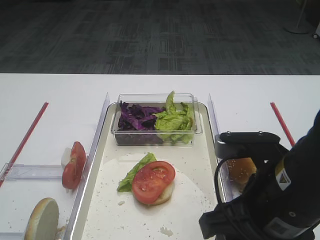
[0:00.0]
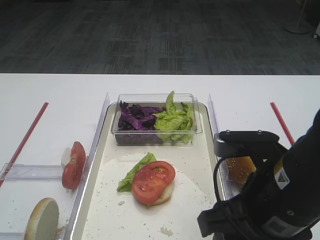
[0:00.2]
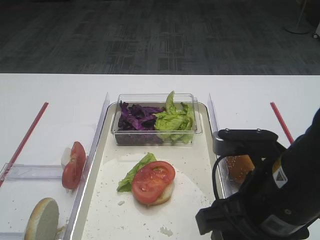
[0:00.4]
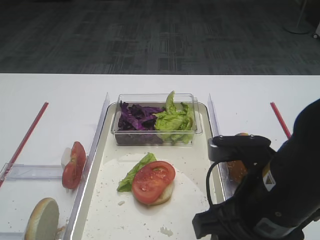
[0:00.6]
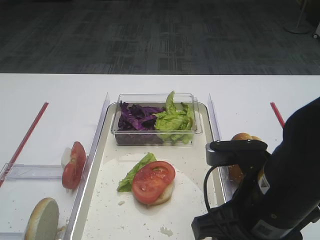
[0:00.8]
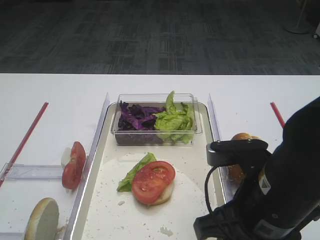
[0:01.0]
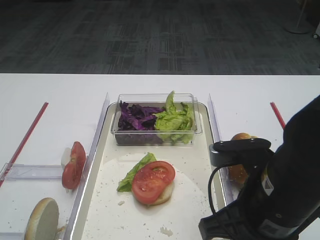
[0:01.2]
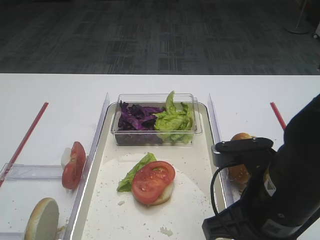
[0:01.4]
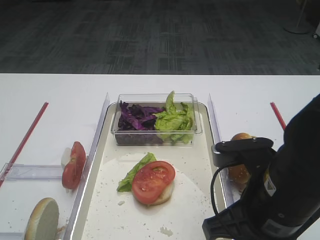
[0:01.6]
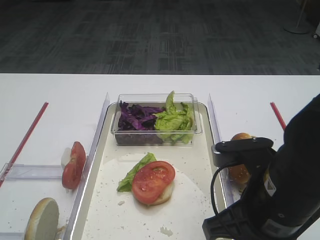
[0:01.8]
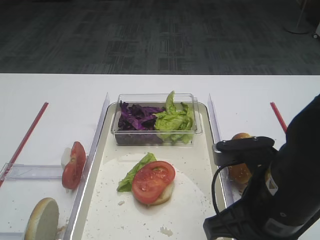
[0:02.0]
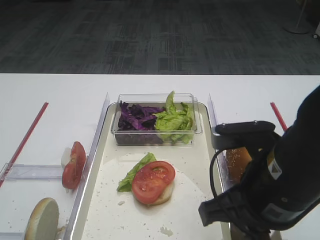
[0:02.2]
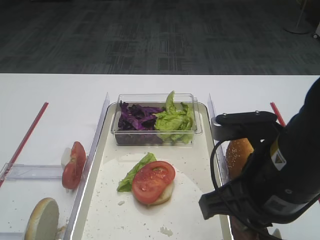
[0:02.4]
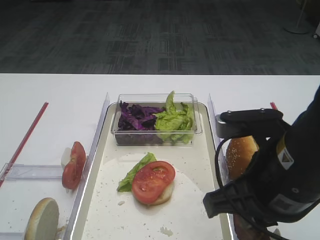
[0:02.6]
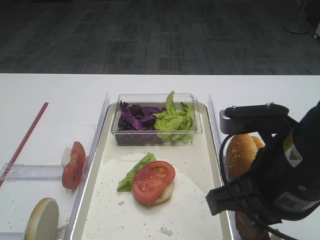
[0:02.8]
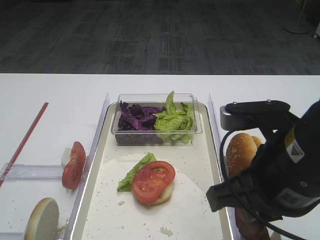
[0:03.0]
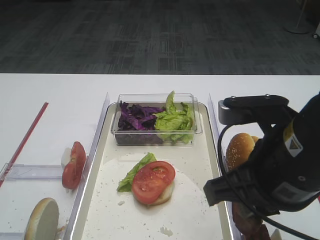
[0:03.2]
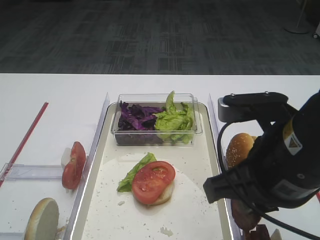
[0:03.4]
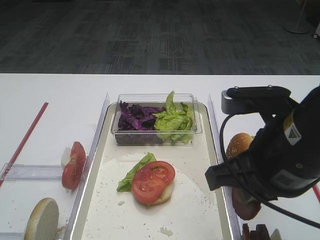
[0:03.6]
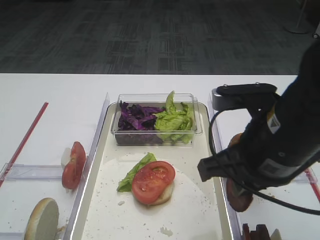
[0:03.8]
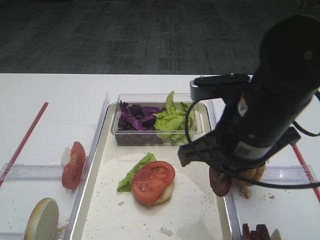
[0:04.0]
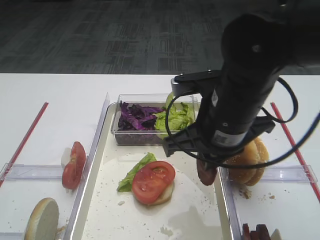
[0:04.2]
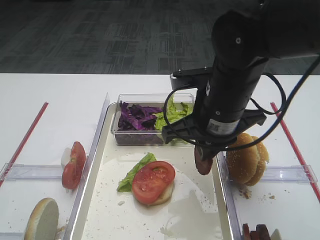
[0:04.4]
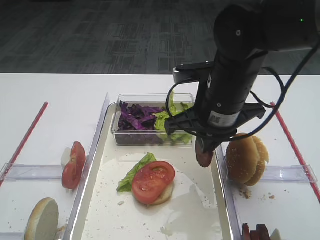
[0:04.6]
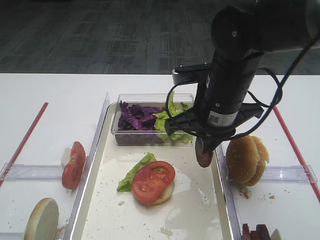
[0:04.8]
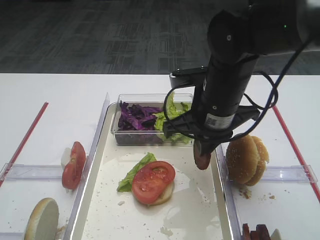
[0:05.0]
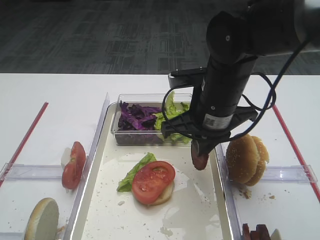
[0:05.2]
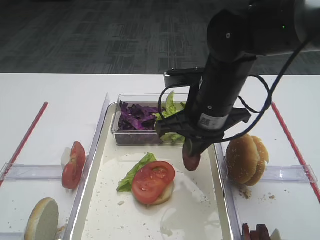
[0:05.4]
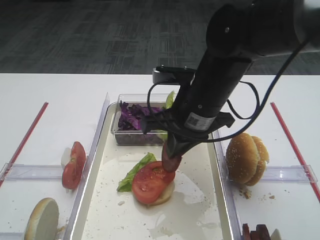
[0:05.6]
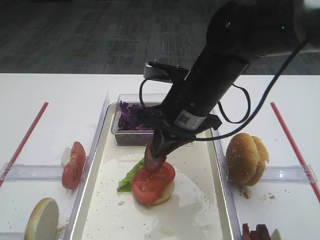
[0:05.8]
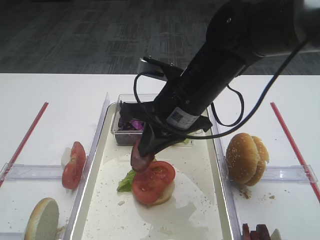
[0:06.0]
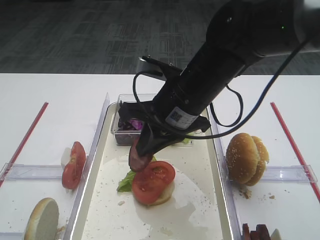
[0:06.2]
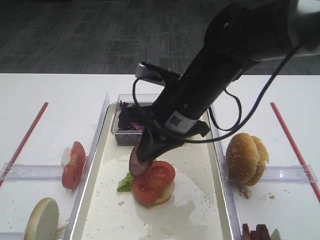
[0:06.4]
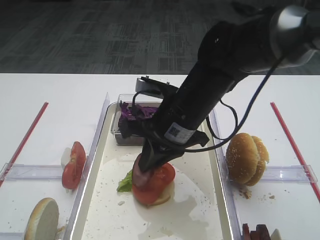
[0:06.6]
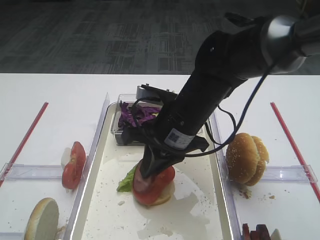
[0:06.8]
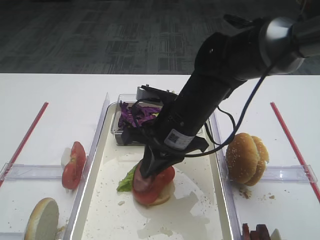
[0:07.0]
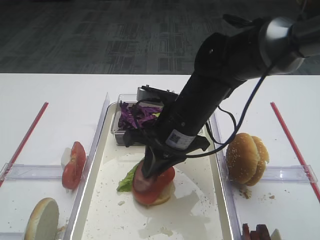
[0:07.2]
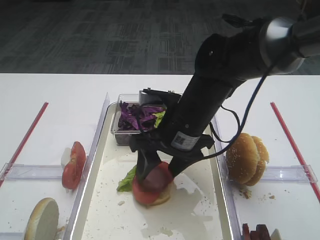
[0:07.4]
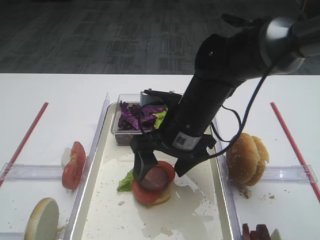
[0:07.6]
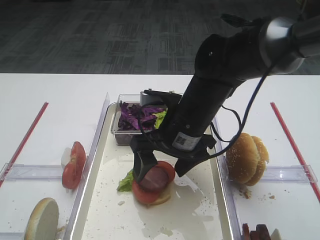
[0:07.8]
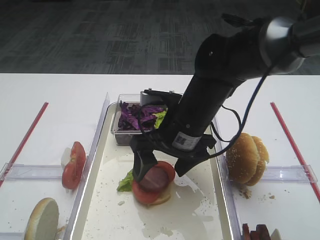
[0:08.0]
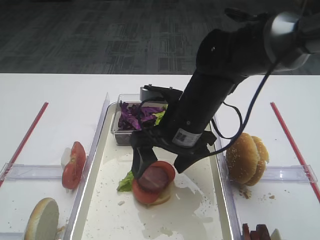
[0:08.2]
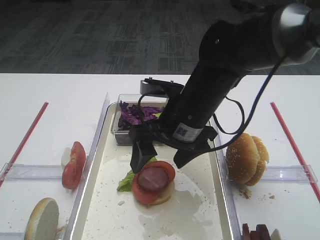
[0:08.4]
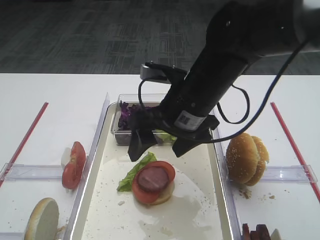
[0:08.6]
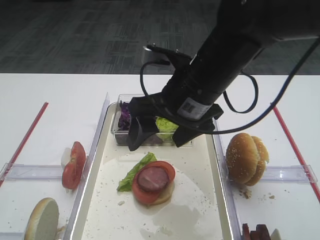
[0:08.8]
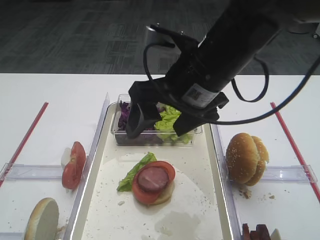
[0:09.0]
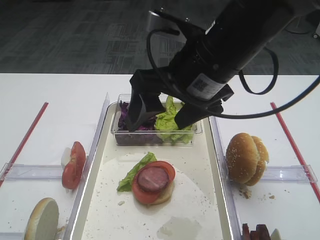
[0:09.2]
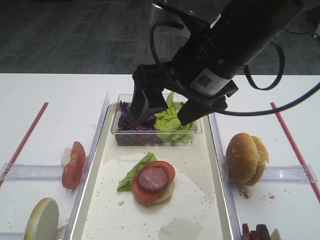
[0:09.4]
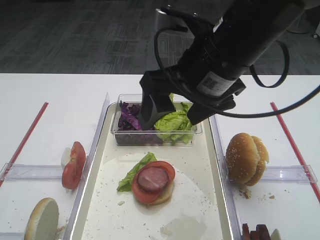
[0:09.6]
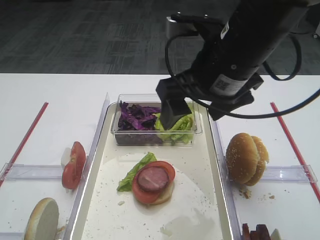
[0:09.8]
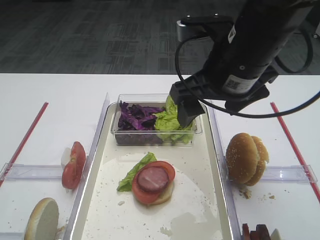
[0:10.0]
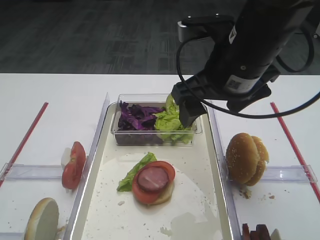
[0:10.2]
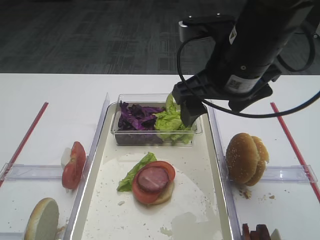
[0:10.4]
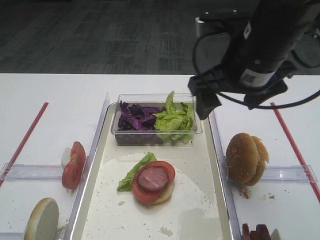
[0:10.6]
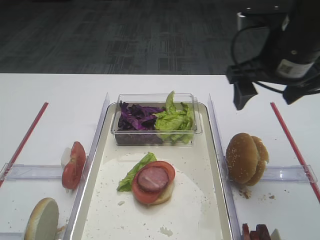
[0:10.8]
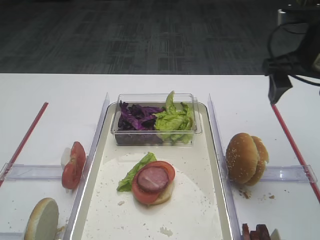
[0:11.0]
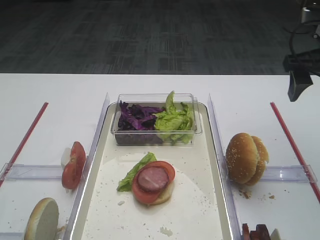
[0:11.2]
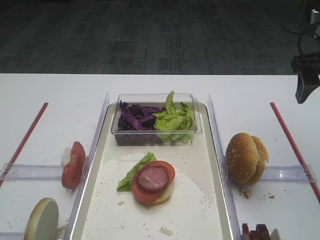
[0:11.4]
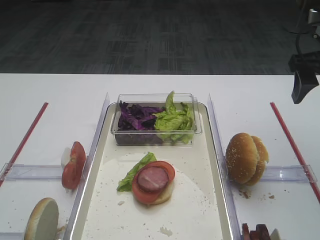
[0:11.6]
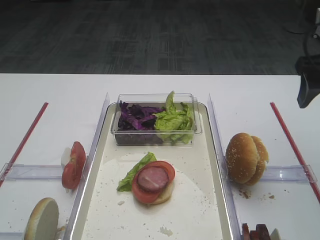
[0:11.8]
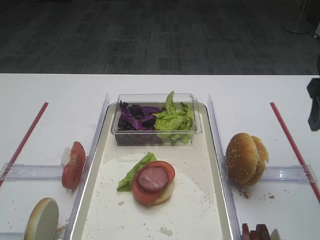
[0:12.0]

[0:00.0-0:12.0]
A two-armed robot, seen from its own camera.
Step, 0:00.0 to 0:03.4: Pick up the cutlet with the right gripper.
Step, 0:03.6 to 0:09.2: Place the cutlet on the tomato slice with the right gripper.
0:00.0 to 0:01.6: The right gripper closes its fingers.
0:01.6 to 0:03.0: The right gripper shifts approximately 5 cm upward.
0:03.0 to 0:04.4: The right gripper moves forward, roughly 10 cm.
0:06.0 to 0:07.6: The right gripper moves downward, about 5 cm, and opens up.
0:07.6 to 0:09.0: The right gripper travels upward by roughly 10 cm.
0:10.4 to 0:12.0: The right gripper travels to the right by approximately 15 cm.

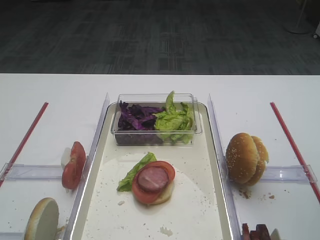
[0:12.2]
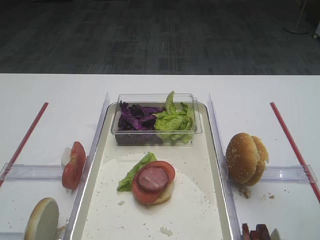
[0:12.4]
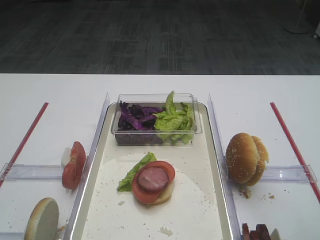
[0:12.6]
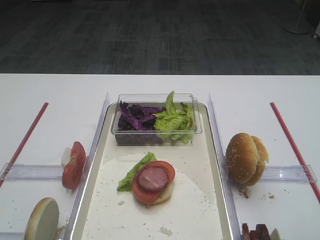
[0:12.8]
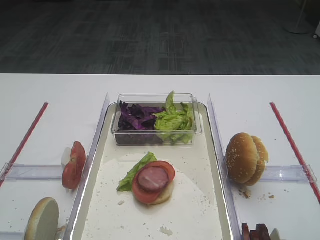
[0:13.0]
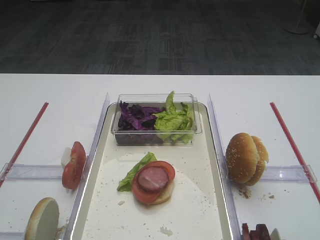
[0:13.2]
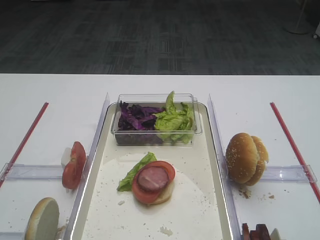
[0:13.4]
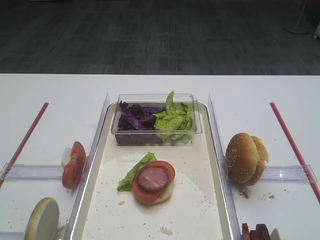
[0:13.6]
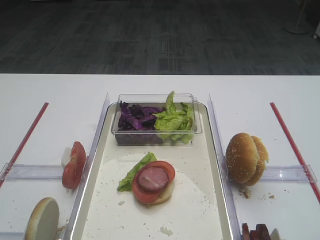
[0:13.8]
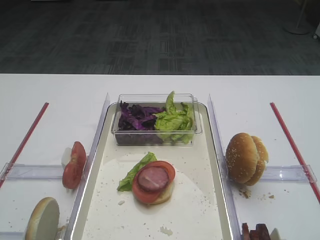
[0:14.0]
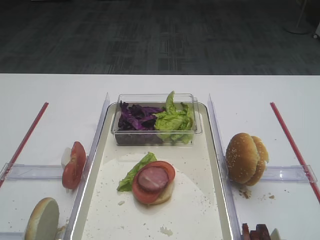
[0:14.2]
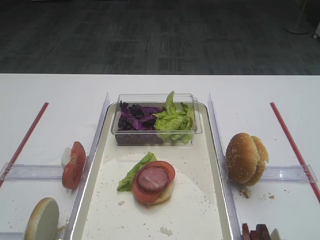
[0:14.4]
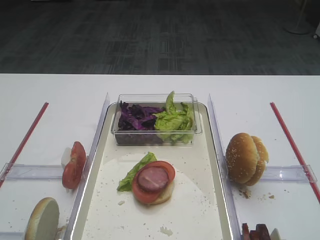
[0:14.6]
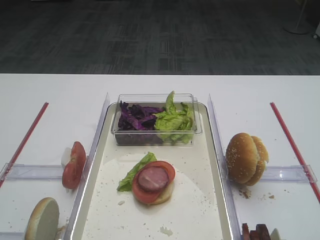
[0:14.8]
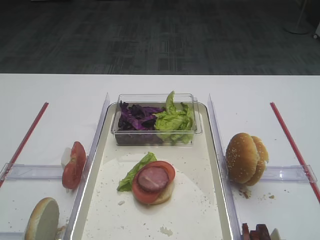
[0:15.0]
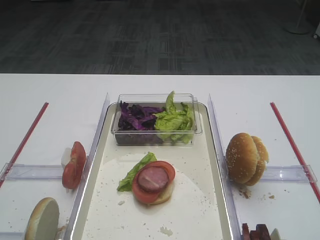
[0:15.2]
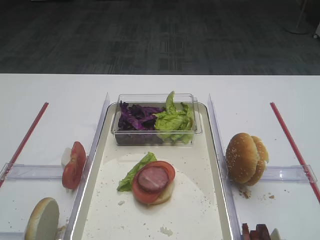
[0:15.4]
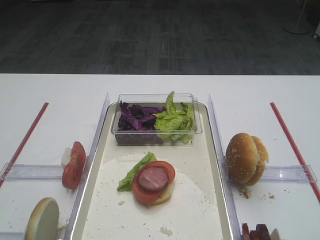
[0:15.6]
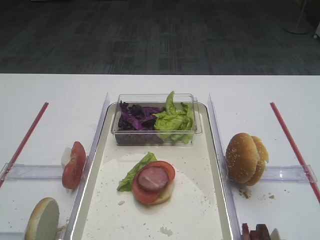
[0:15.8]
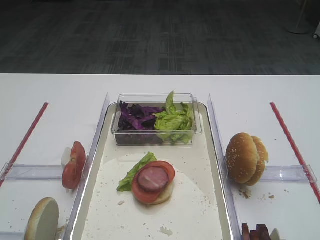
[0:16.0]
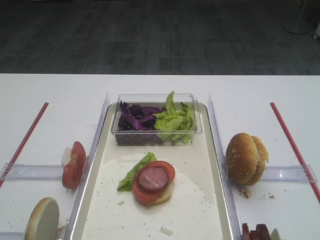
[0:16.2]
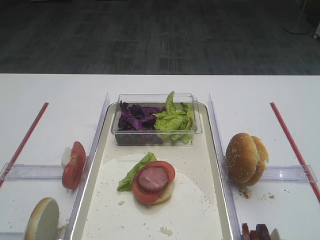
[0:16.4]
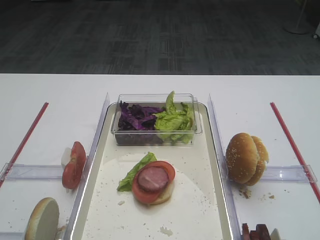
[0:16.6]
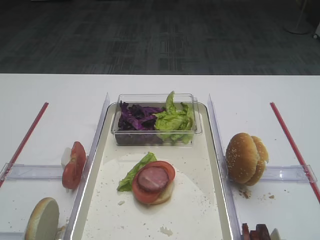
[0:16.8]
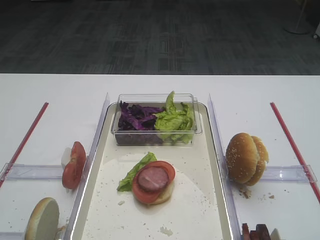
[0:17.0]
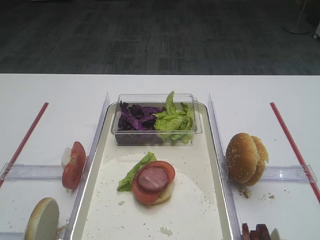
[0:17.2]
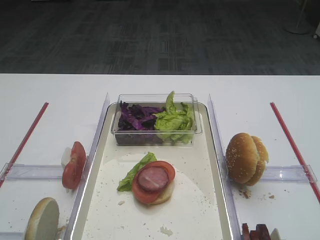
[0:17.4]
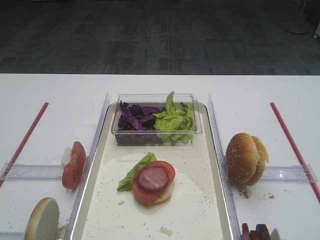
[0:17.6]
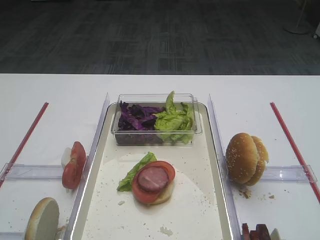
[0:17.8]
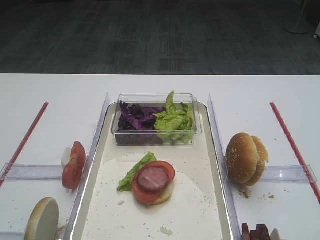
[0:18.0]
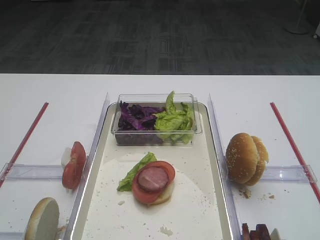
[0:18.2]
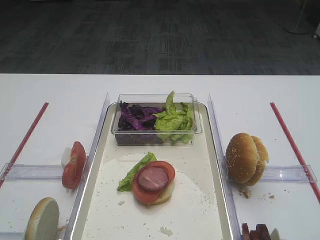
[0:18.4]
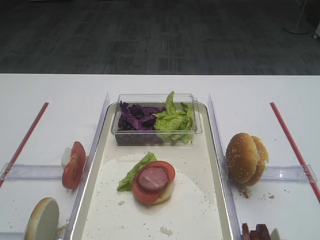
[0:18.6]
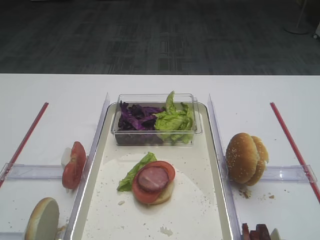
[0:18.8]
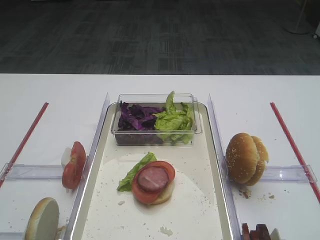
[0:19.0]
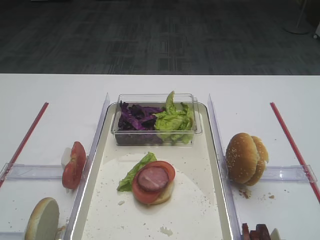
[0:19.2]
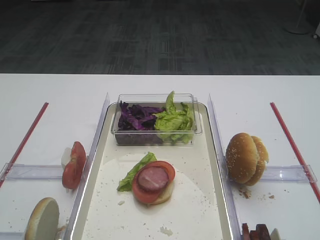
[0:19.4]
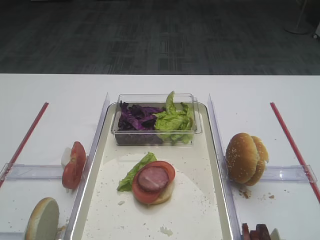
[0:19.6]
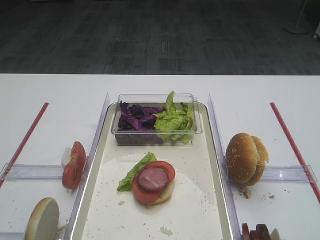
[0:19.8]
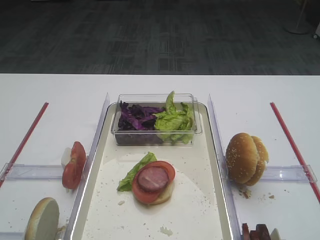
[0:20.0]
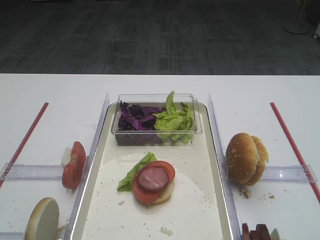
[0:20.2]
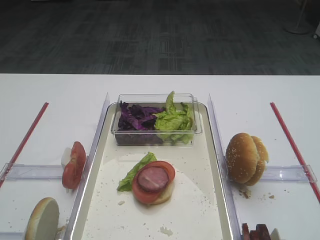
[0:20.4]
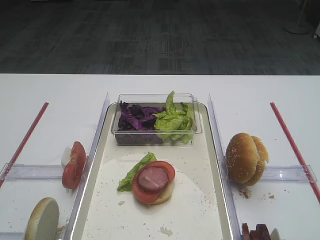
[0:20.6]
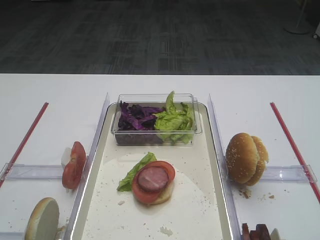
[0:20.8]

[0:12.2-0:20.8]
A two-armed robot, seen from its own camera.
0:12.2 to 0:13.6: The right gripper travels backward by some 20 cm.
0:15.0 to 0:16.6: Neither gripper changes place.
0:18.0 to 0:20.8: Both grippers stay about where they are.

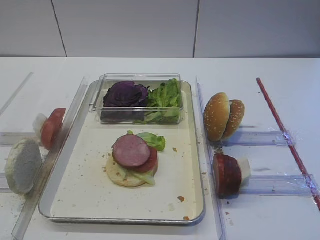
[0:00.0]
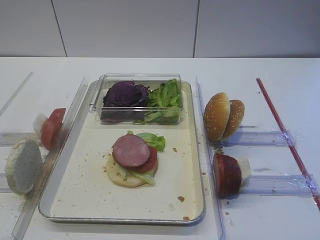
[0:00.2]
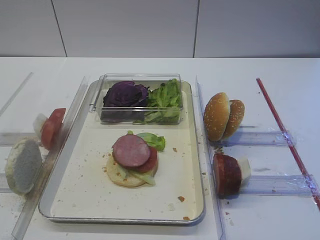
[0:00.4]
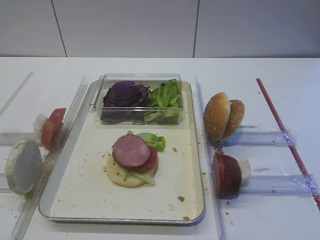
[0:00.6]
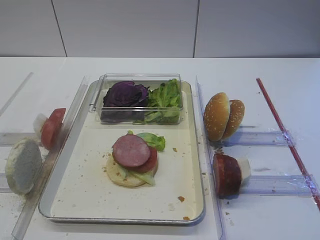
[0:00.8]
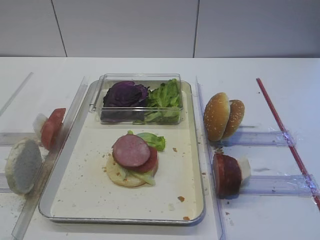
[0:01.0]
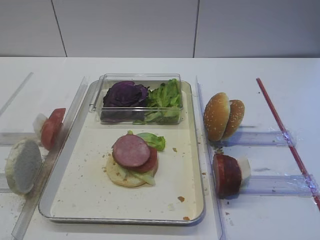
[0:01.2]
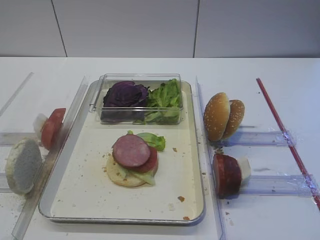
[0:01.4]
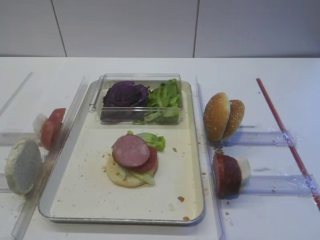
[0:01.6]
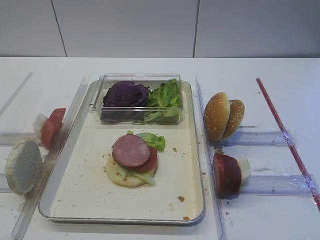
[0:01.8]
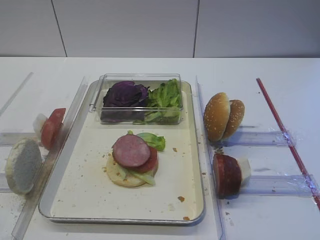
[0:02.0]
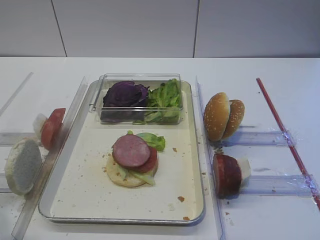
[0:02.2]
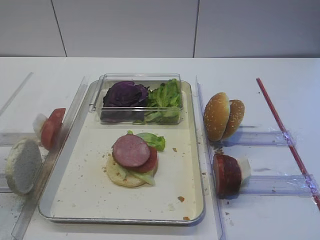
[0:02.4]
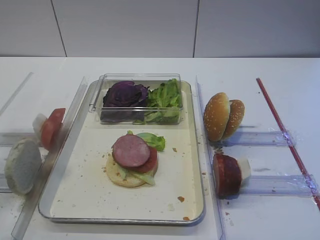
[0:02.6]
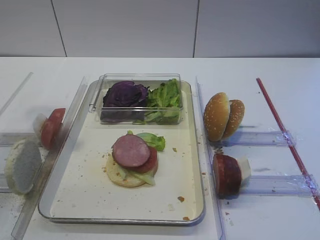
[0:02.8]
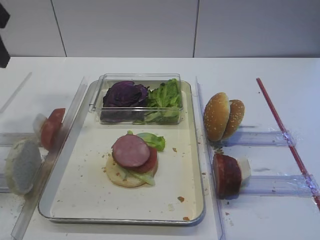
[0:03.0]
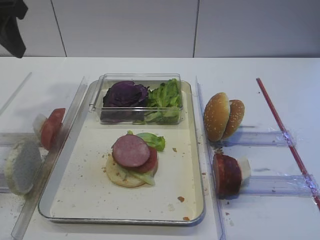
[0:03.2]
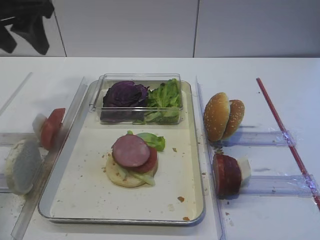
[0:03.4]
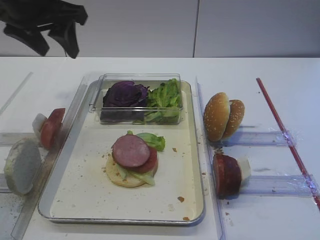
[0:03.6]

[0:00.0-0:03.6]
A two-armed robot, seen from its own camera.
0:01.8 to 0:03.6: The left gripper moves forward, roughly 35 cm, and opens its fingers.
